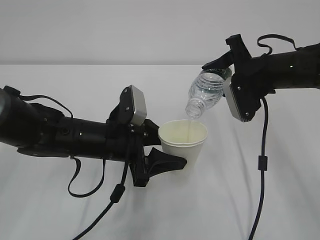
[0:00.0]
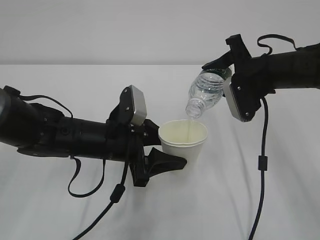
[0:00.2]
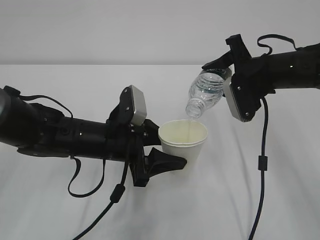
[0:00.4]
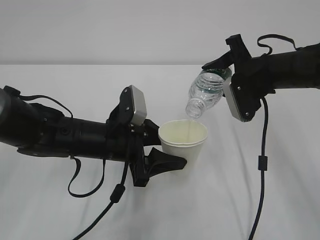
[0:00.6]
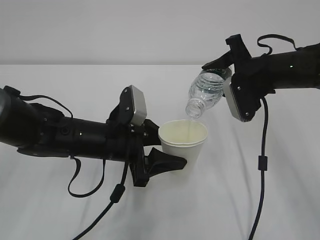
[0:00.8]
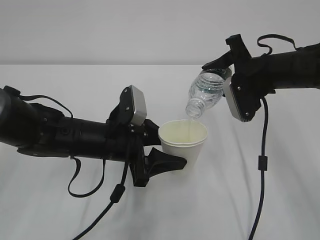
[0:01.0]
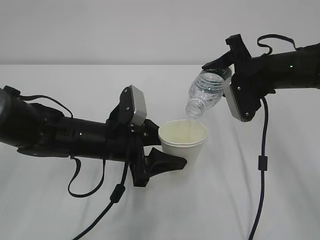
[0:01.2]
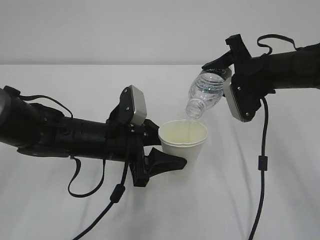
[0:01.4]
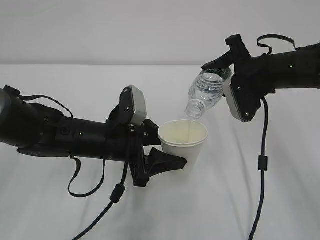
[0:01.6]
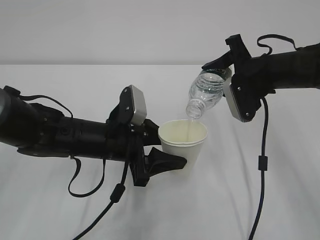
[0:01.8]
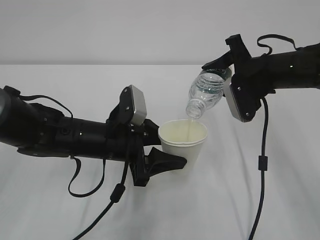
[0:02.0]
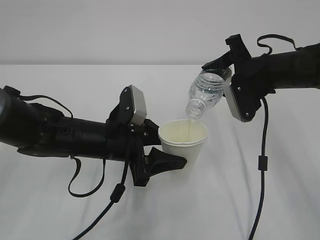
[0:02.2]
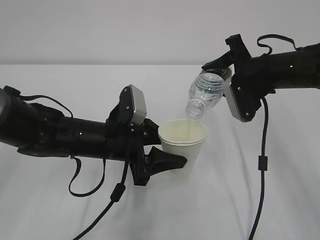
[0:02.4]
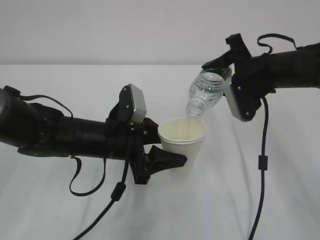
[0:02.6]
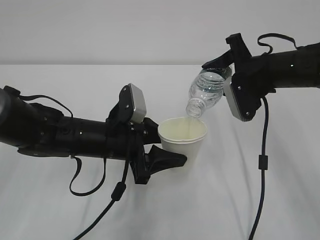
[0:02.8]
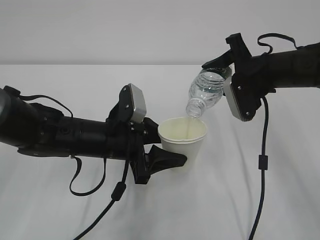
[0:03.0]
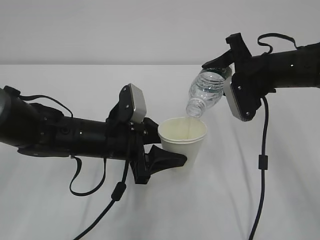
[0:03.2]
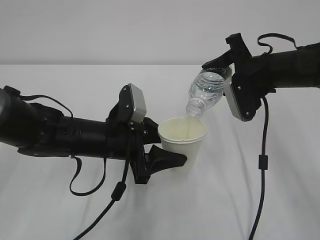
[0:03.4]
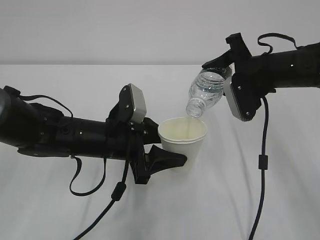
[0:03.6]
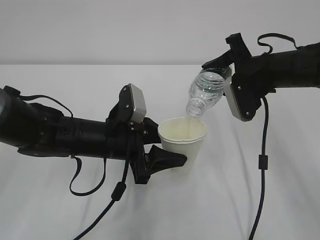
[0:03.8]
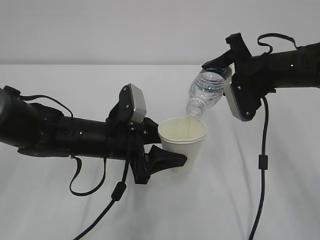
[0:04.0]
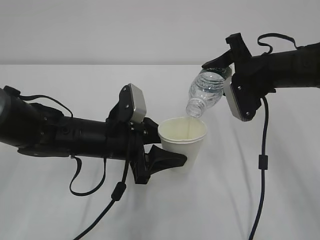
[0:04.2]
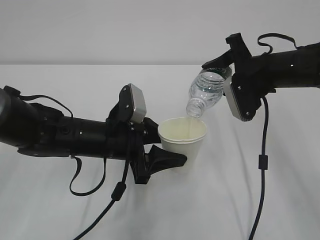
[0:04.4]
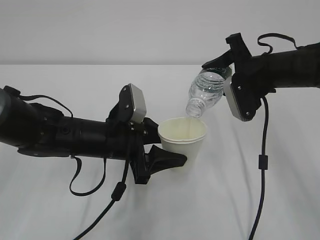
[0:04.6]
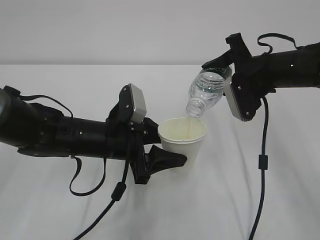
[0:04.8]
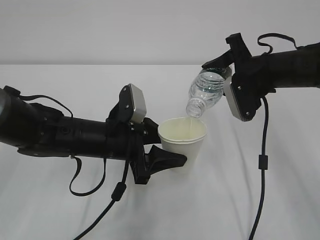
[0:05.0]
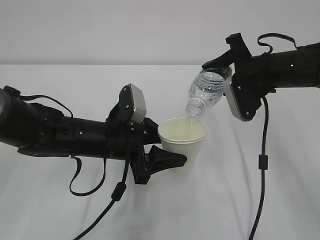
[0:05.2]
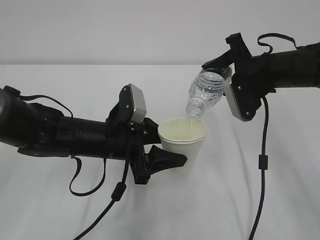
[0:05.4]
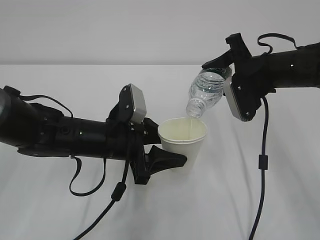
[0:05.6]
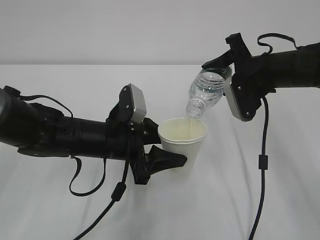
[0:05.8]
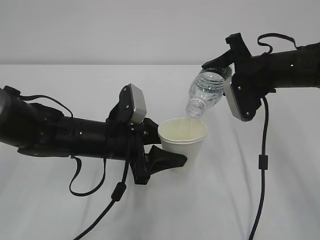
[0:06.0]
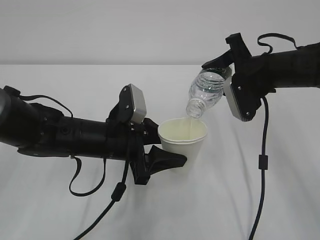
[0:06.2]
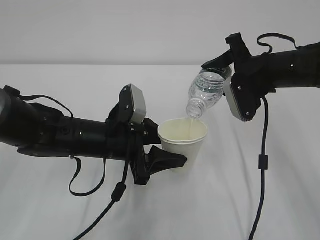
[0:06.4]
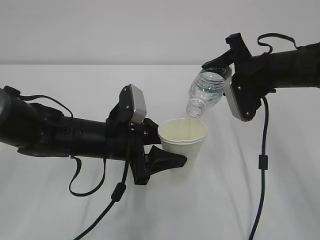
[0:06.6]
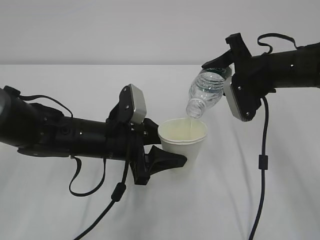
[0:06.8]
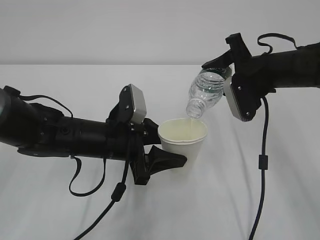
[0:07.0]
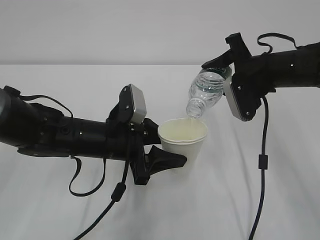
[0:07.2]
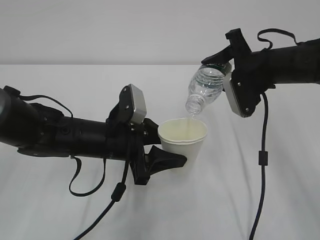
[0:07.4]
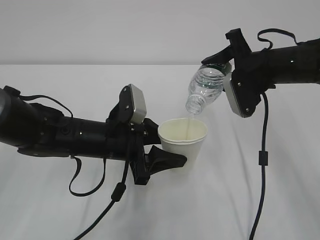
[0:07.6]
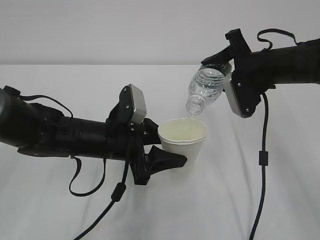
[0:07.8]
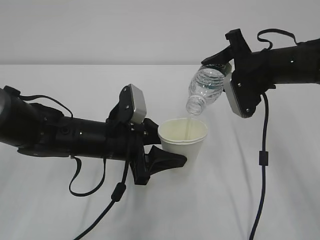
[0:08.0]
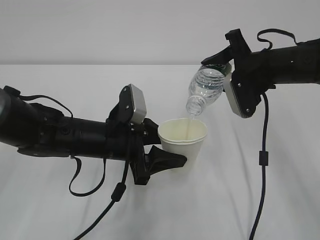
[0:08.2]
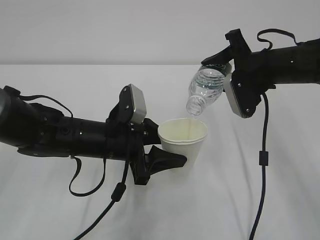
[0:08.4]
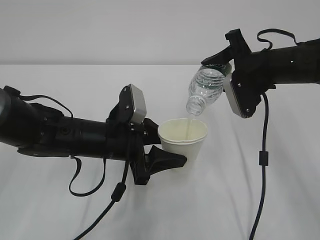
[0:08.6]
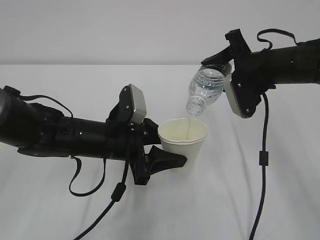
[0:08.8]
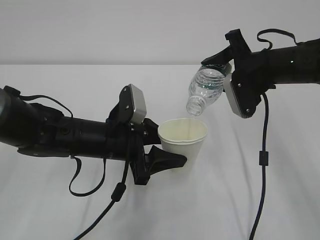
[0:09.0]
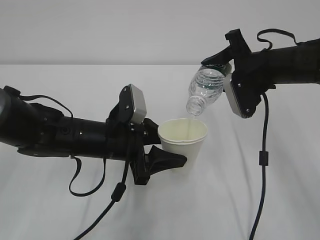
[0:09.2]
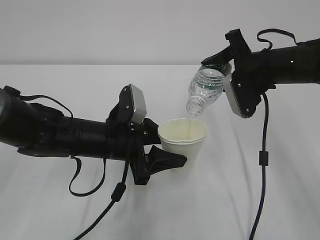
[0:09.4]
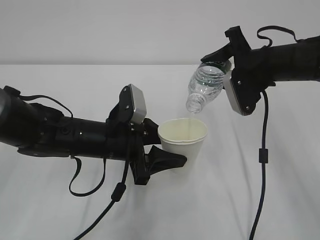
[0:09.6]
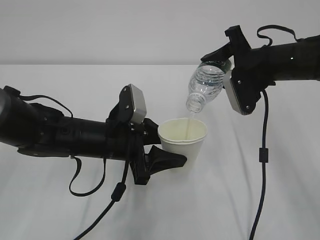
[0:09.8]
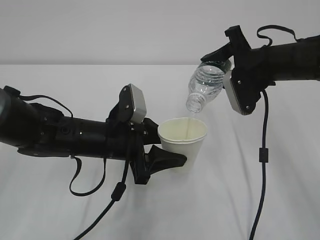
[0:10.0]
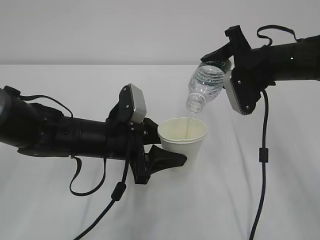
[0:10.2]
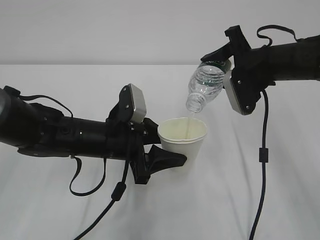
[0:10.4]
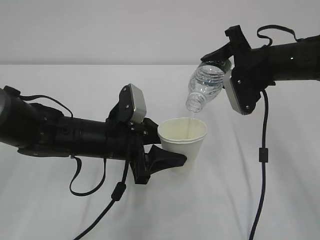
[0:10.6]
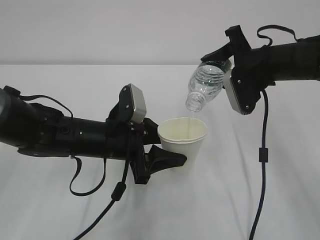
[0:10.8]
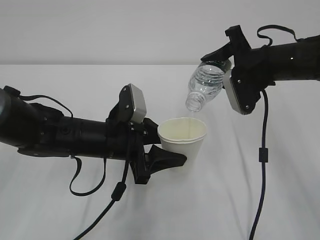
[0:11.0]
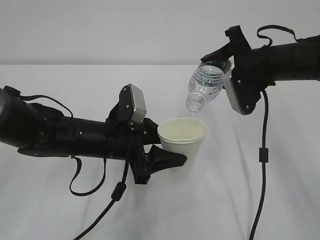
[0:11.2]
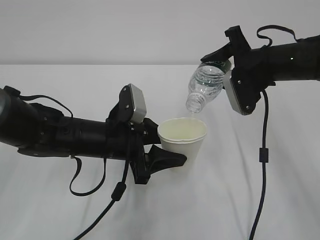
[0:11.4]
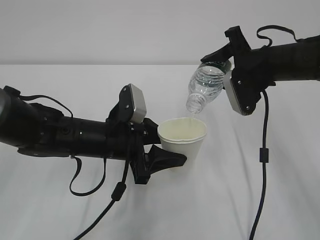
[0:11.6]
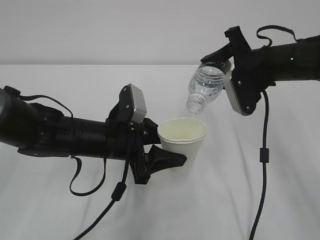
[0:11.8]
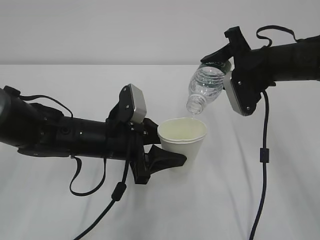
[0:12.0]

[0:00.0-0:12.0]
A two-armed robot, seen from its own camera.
0:00.0 to 0:12.0: Neither gripper changes place.

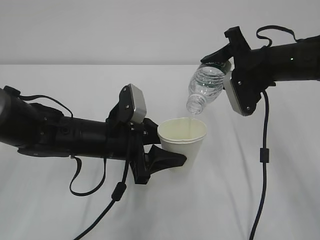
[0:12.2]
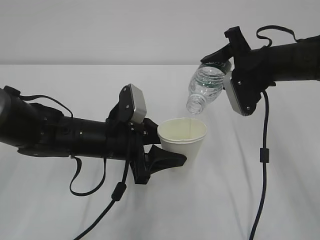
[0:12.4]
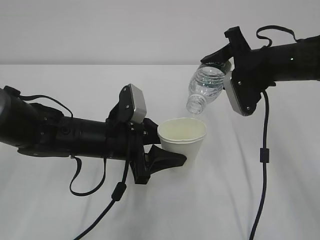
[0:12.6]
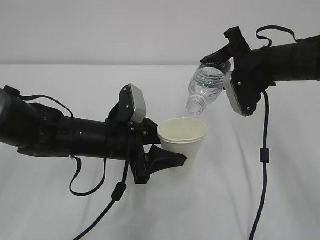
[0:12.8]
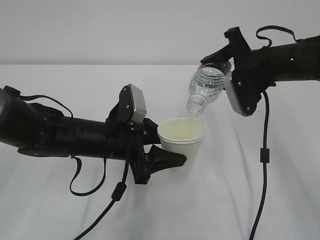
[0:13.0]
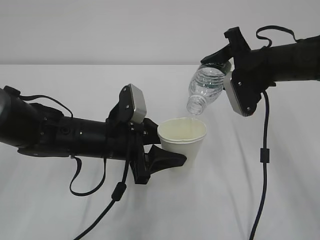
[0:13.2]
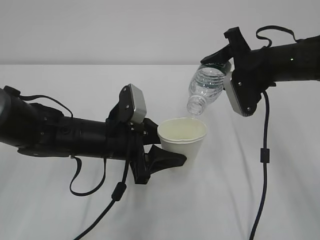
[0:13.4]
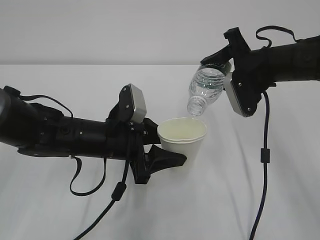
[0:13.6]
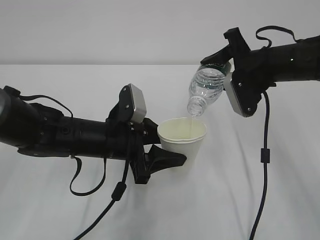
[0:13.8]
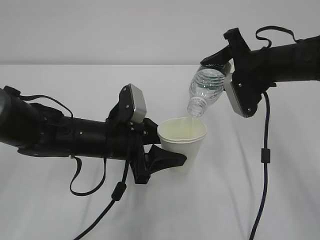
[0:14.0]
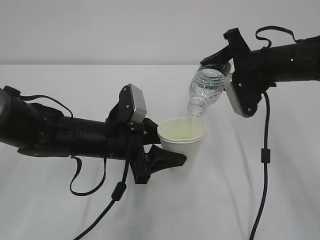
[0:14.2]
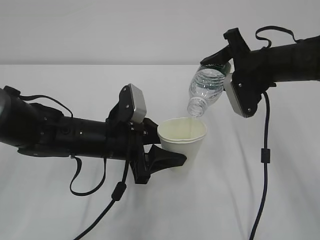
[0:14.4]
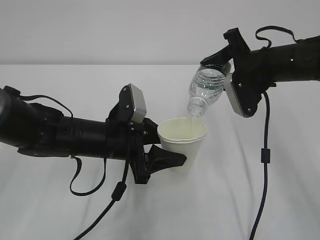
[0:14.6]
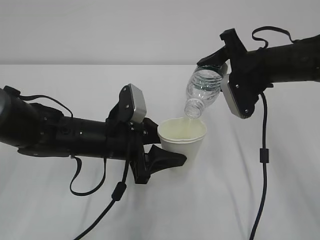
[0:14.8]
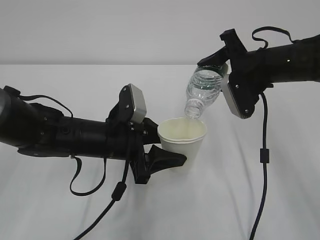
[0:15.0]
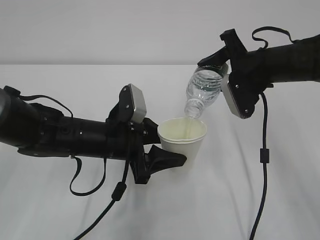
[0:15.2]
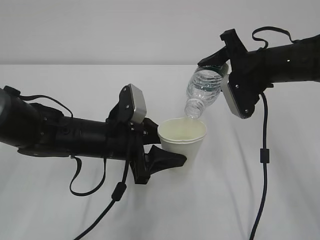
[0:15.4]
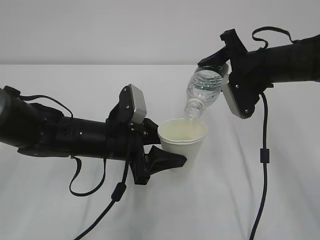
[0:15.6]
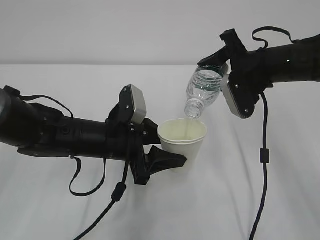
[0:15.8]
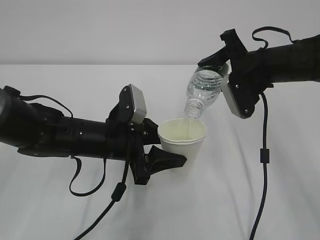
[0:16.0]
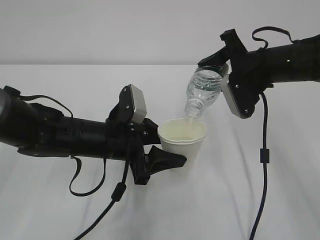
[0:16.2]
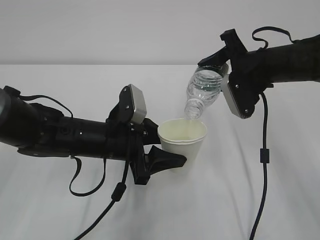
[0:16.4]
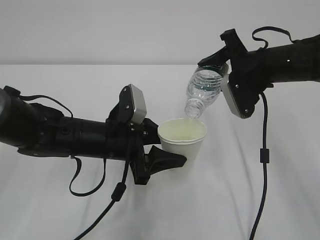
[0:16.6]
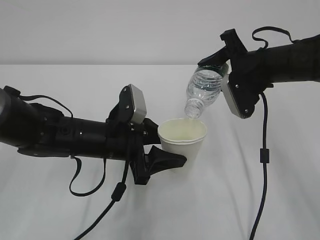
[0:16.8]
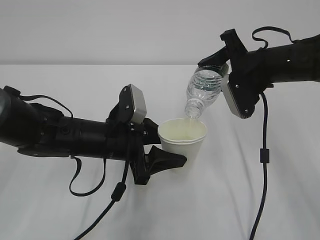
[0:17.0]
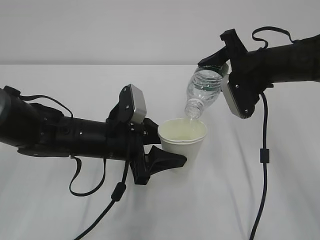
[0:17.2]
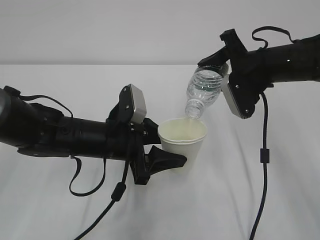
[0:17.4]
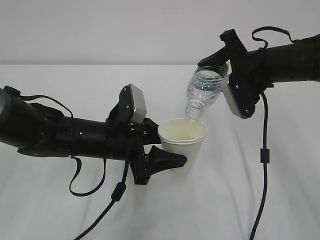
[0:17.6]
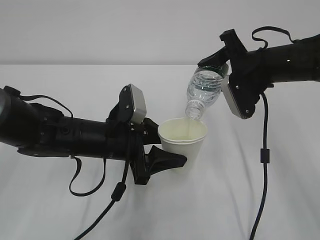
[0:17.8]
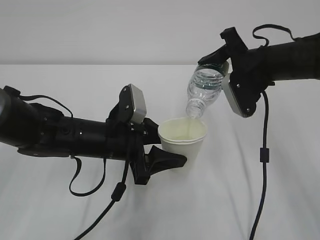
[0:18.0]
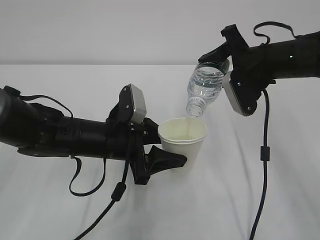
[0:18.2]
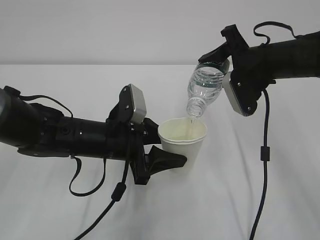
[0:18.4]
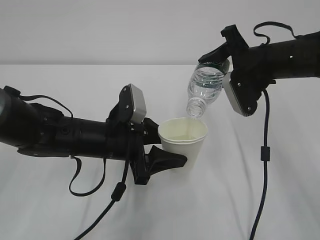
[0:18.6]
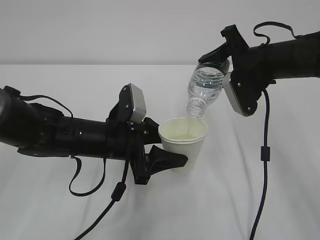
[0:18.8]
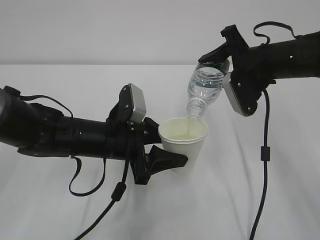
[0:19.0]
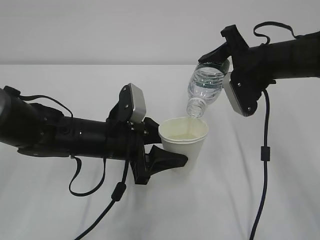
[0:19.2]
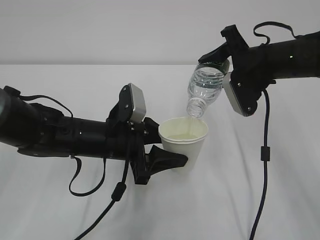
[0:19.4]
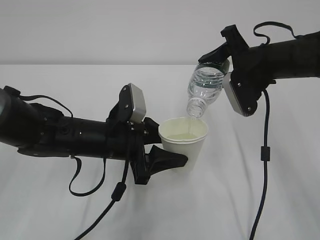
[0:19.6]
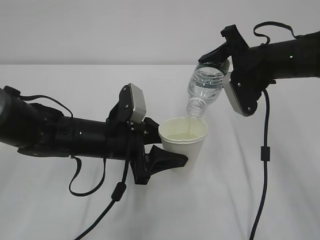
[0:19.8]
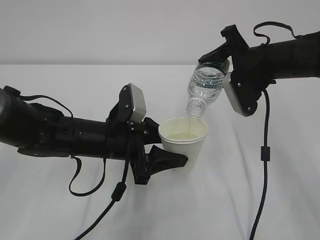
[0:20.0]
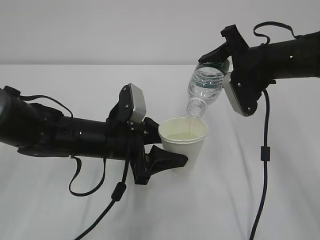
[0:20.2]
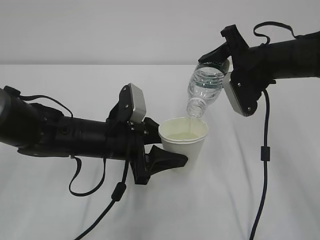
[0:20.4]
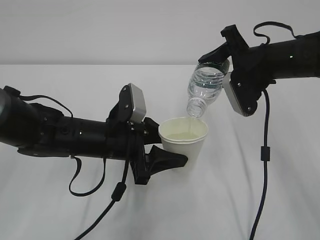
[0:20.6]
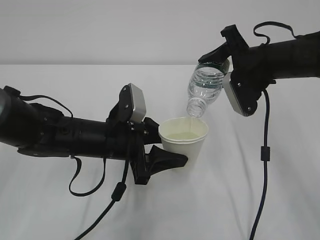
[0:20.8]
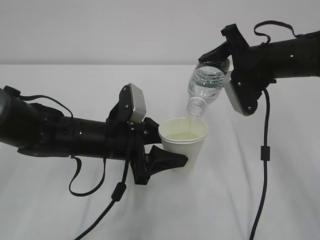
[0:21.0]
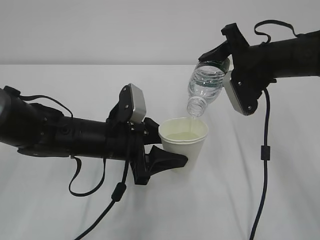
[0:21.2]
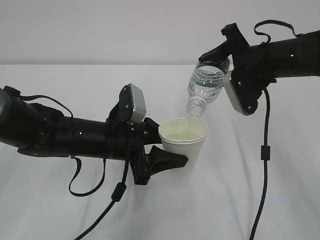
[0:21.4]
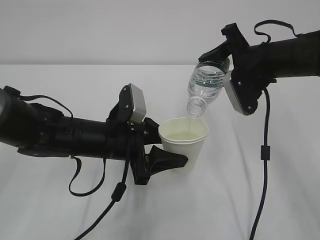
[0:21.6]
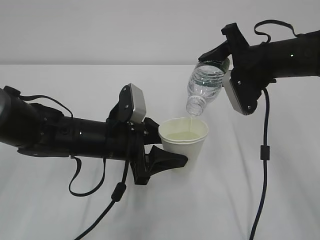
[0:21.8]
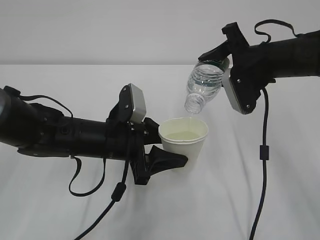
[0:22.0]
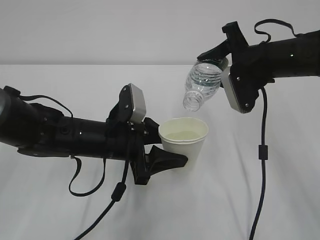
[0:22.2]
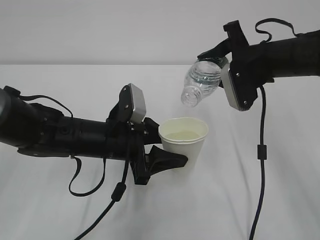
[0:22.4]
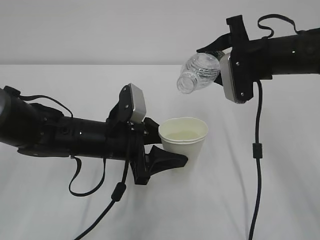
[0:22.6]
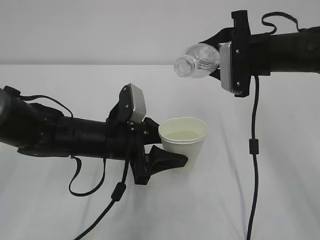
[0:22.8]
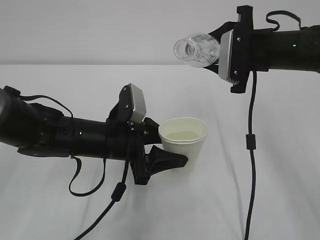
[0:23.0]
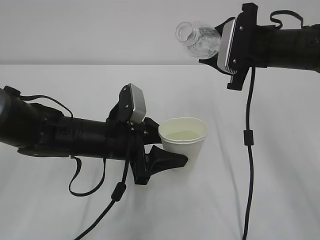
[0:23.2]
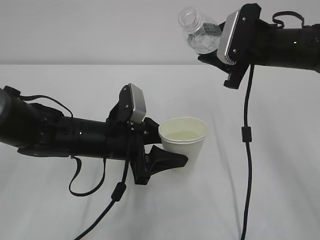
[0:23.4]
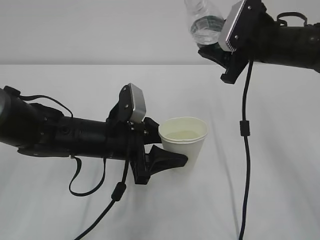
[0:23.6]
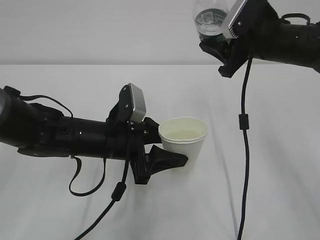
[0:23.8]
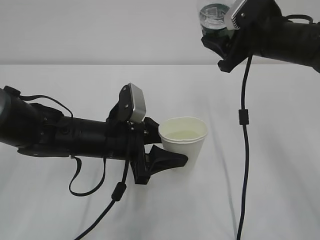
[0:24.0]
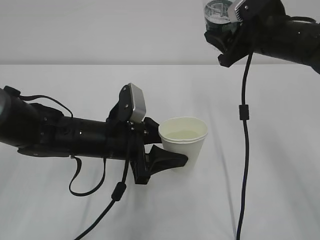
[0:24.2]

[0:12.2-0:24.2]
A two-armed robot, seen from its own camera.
0:12.2 to 0:21.2: Both grippers stay put.
0:21.2 to 0:22.6: The grippers make only small movements.
